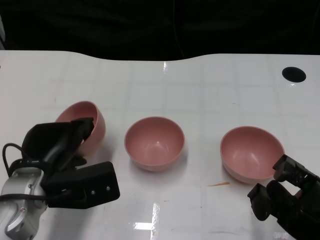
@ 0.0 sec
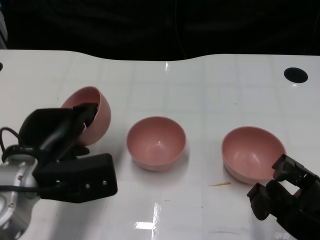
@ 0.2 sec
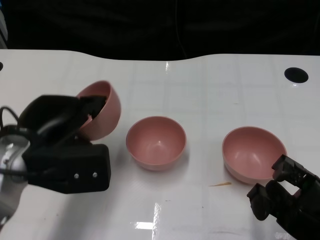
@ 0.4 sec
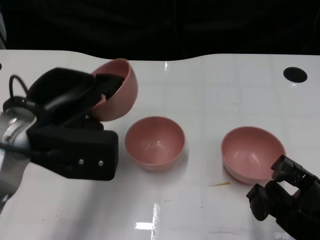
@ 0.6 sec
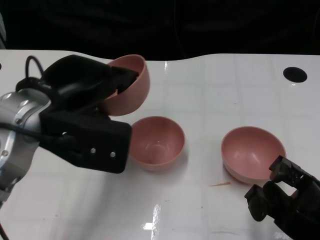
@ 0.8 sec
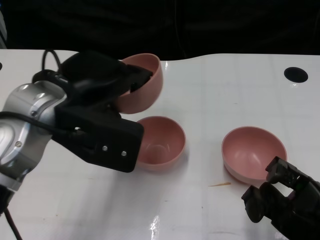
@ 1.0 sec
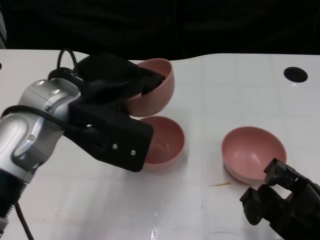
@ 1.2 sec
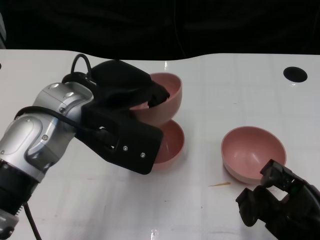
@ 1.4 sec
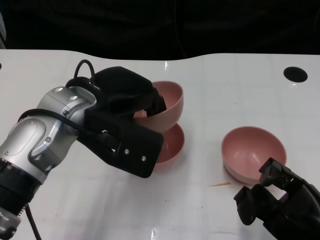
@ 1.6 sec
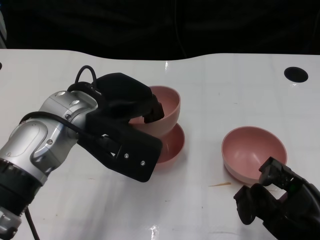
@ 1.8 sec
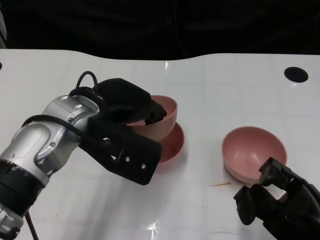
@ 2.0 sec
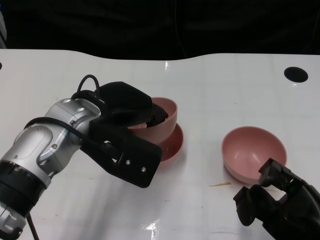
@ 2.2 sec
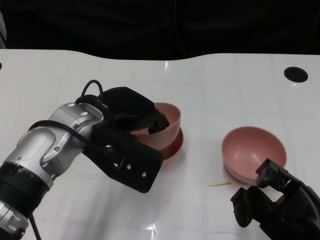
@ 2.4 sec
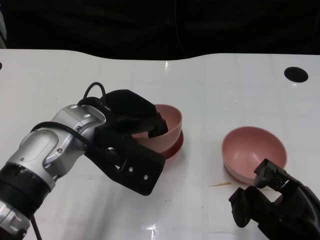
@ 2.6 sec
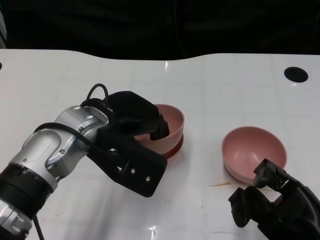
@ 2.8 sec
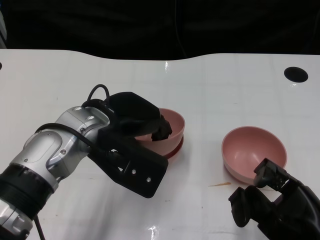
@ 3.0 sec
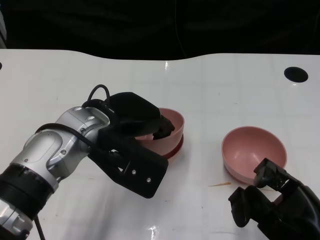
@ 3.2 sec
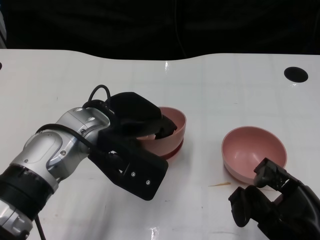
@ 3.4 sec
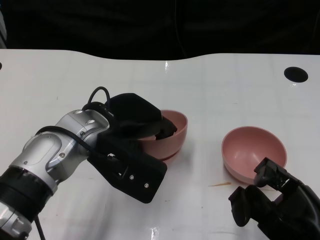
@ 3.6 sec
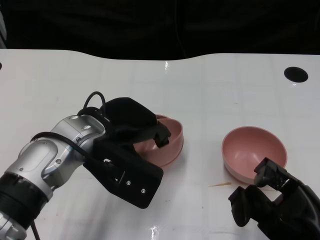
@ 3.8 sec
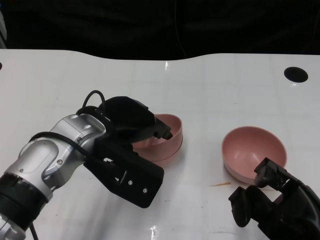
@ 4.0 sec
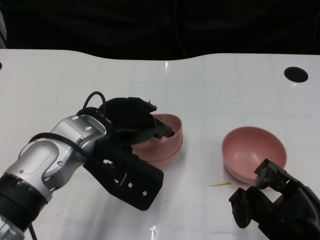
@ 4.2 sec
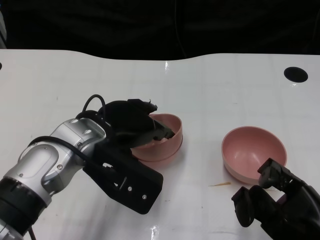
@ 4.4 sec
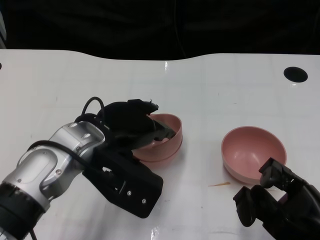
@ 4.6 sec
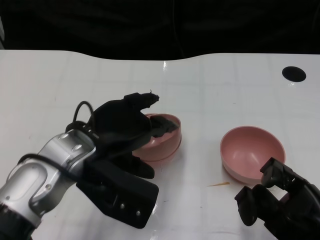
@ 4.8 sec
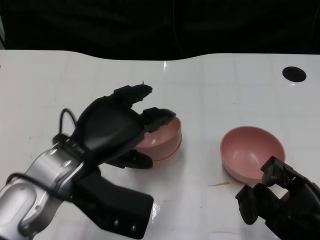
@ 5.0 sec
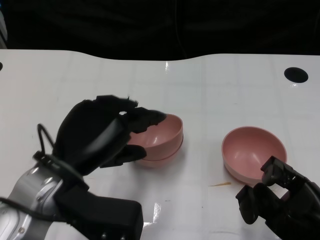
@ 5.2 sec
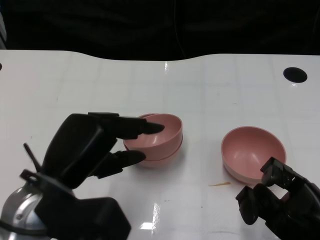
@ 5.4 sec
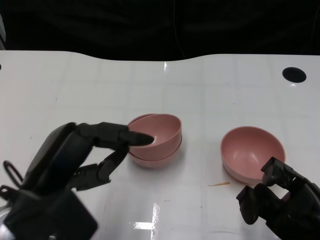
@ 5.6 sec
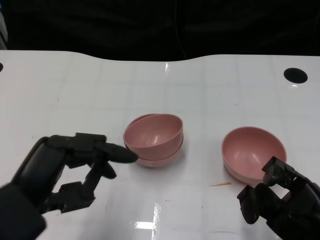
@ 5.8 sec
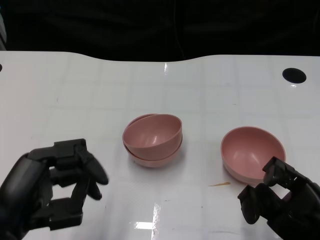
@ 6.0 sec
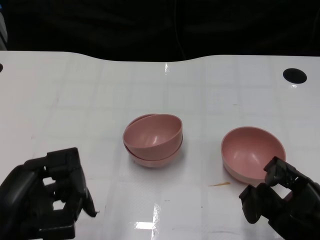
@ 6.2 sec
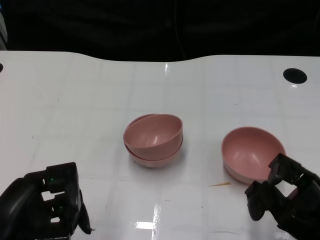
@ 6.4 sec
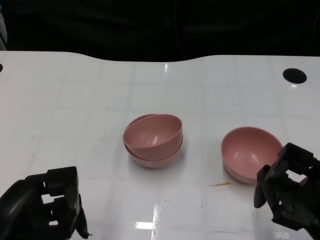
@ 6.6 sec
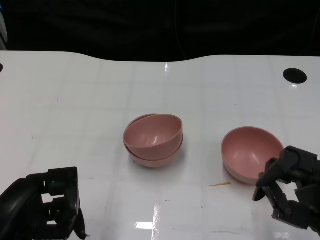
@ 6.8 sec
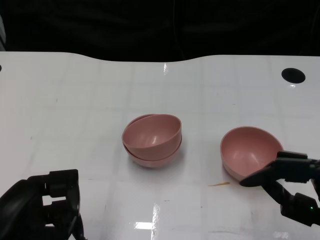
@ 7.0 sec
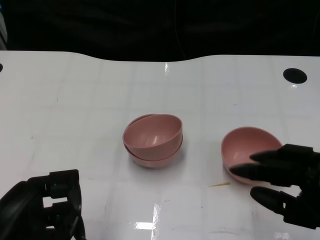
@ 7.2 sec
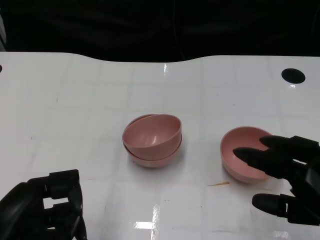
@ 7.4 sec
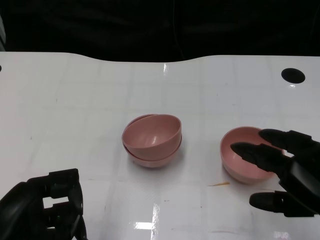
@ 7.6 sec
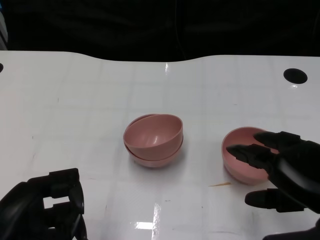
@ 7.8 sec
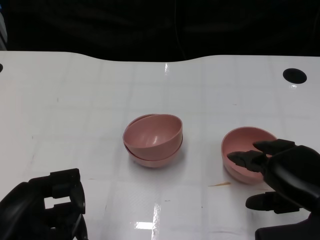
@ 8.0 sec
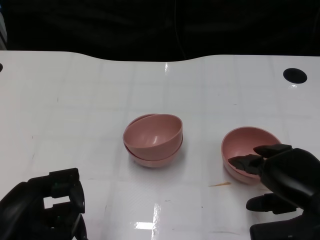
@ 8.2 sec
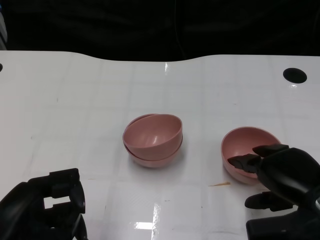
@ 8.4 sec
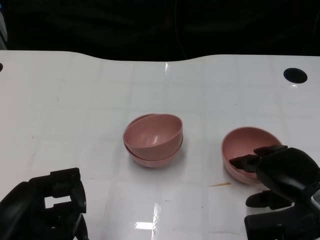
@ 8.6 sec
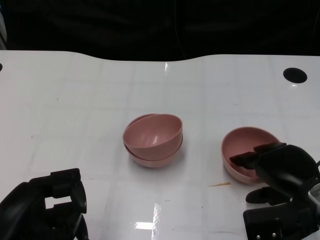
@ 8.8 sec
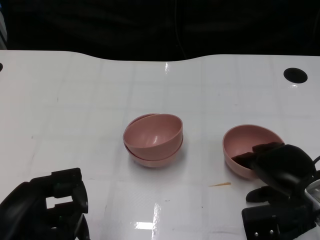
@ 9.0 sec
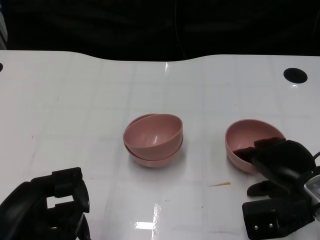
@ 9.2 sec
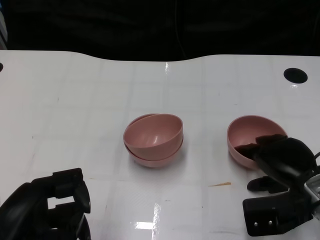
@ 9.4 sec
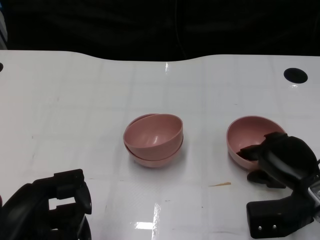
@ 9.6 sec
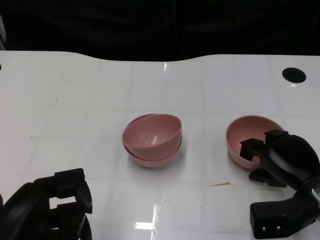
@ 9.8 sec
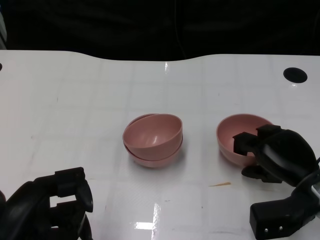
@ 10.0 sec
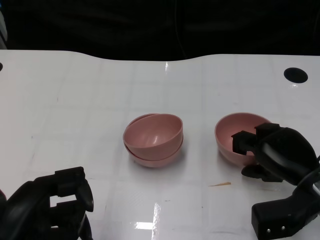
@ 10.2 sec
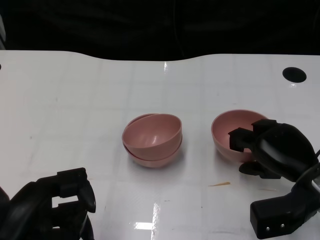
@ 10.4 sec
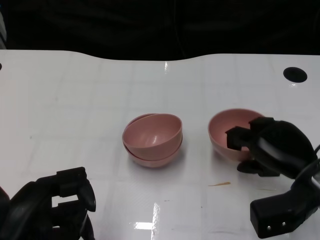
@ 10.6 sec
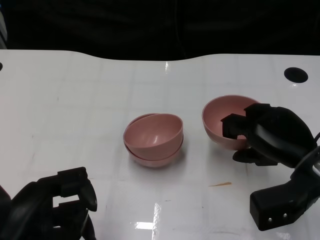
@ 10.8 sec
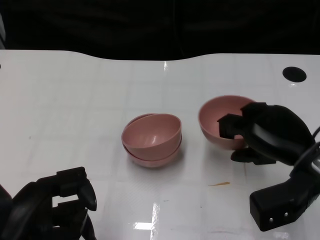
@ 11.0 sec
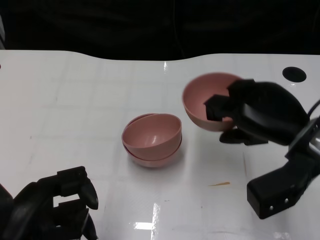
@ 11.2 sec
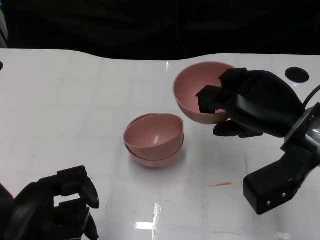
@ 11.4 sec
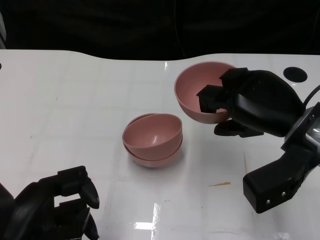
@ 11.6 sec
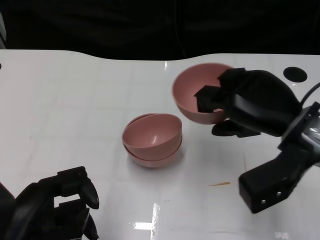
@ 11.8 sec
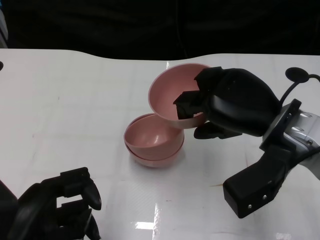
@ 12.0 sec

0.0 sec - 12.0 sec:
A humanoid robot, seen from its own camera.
Task of the whole recording: Pick up the bowl on one side of the table and place it on top of the middle bowl, then pick up the bowl on the other side of the table and place it on top of the middle bowls.
Step, 0.0 sec - 4.8 sec: Place the bowl on the left onto the bowl in the middle with left gripper.
Step, 5.0 sec - 10.0 sec: Grasp the bowl on the right with the right gripper.
0.0 sec - 1.6 sec: The left hand shifts some 15 cm upward and to the right.
3.0 sec - 4.4 sec: The hands stay close to where they were, moving slightly.
4.4 sec - 6.0 sec: The left hand goes roughly 15 cm backward and to the left.
6.0 sec - 7.6 sec: The right hand goes roughly 5 cm upward.
7.6 sec - 9.0 sec: The right hand goes some 10 cm forward and downward.
10.4 sec - 12.0 sec: The right hand moves upward and to the left, about 10 cm.

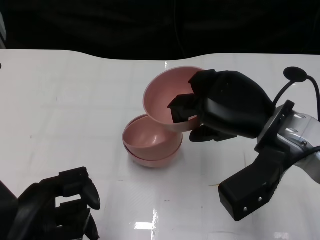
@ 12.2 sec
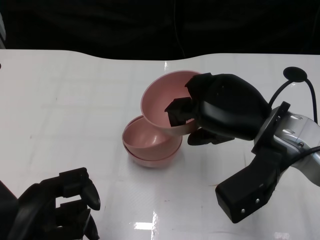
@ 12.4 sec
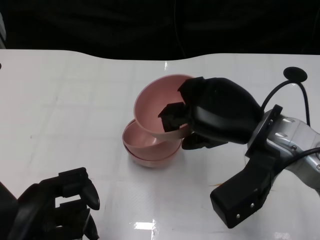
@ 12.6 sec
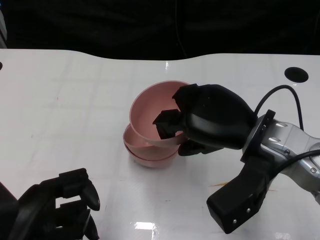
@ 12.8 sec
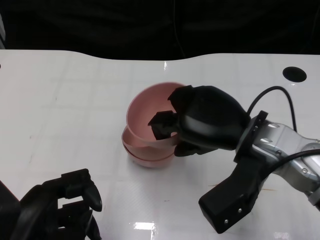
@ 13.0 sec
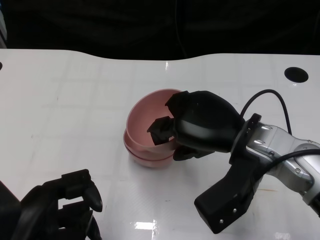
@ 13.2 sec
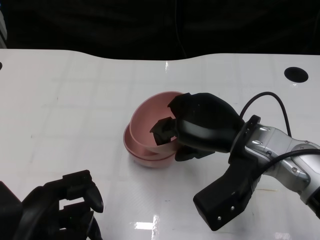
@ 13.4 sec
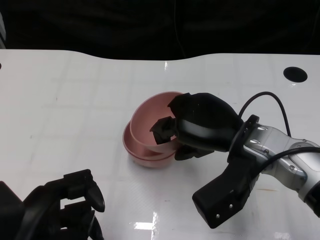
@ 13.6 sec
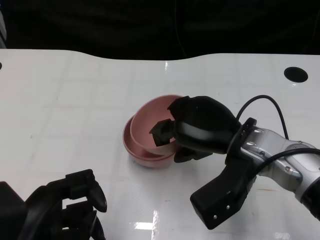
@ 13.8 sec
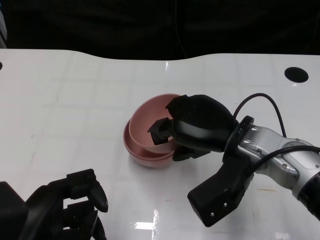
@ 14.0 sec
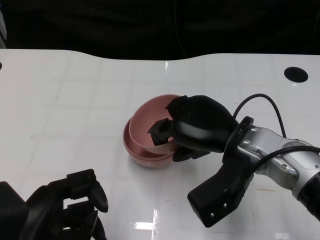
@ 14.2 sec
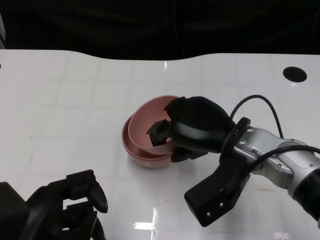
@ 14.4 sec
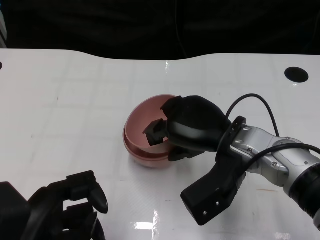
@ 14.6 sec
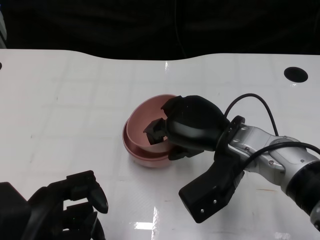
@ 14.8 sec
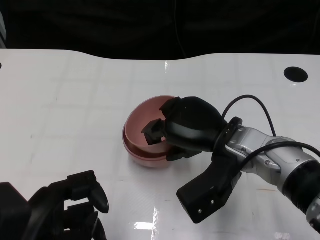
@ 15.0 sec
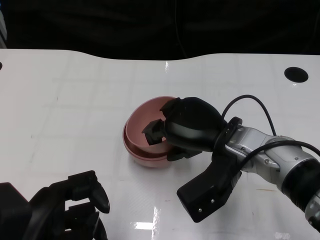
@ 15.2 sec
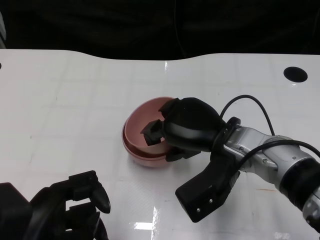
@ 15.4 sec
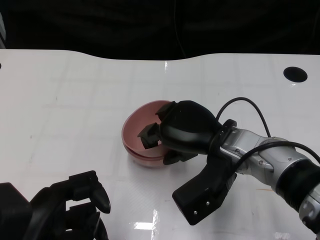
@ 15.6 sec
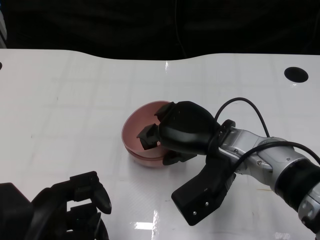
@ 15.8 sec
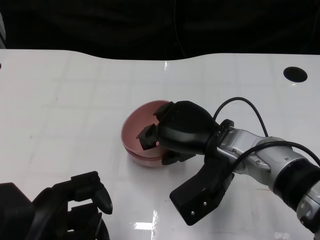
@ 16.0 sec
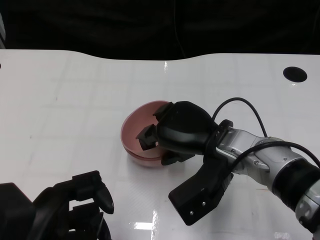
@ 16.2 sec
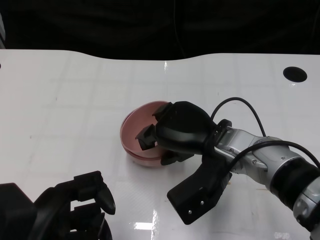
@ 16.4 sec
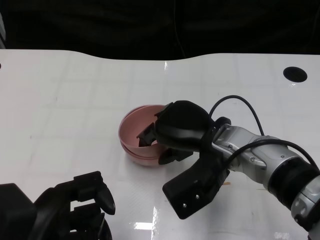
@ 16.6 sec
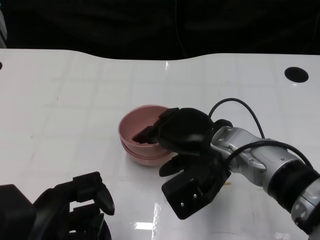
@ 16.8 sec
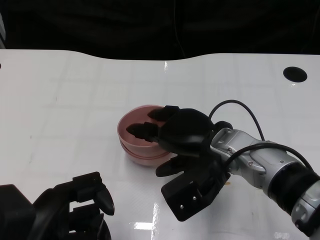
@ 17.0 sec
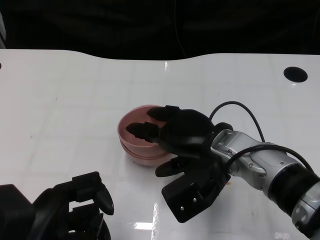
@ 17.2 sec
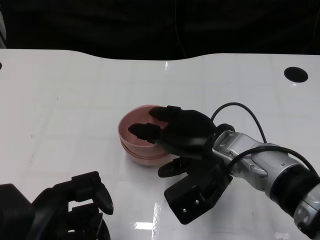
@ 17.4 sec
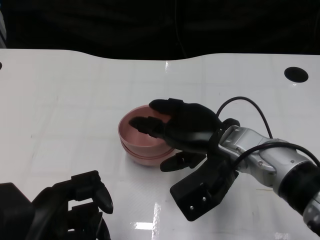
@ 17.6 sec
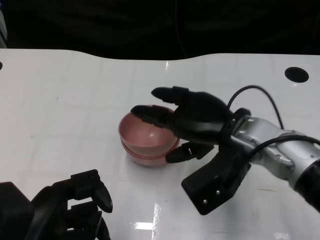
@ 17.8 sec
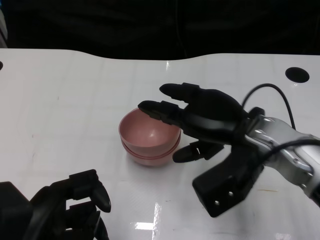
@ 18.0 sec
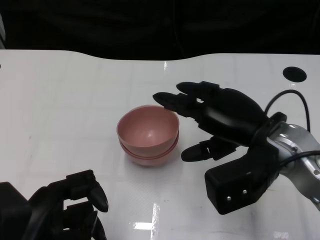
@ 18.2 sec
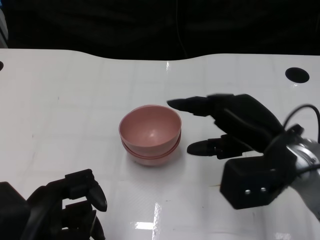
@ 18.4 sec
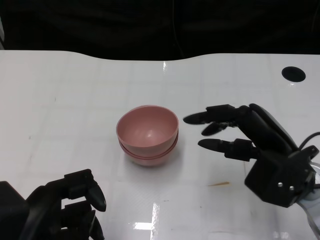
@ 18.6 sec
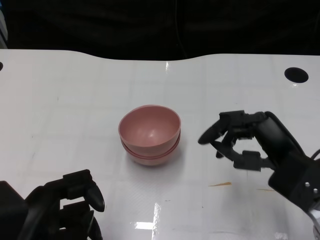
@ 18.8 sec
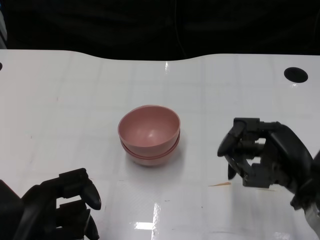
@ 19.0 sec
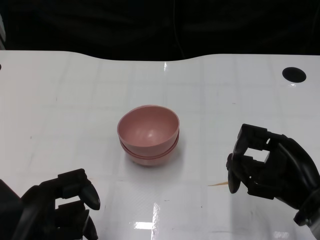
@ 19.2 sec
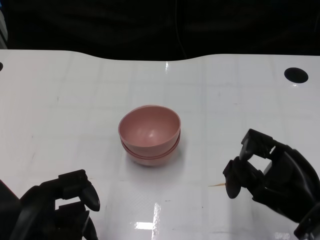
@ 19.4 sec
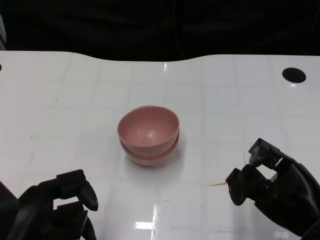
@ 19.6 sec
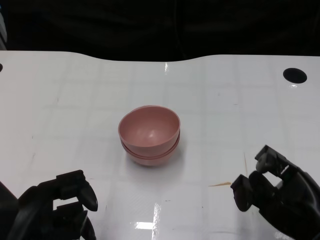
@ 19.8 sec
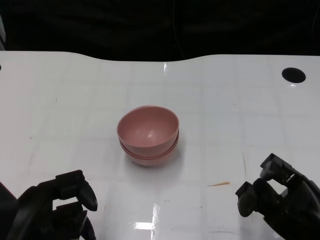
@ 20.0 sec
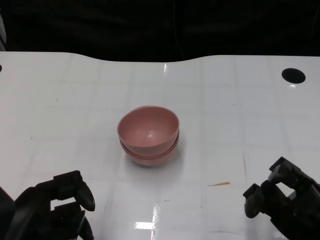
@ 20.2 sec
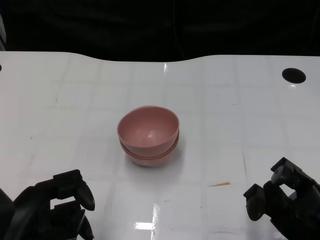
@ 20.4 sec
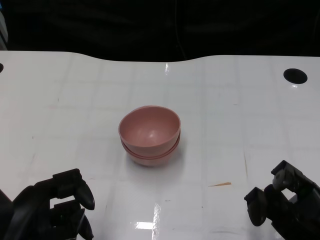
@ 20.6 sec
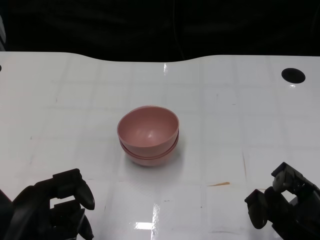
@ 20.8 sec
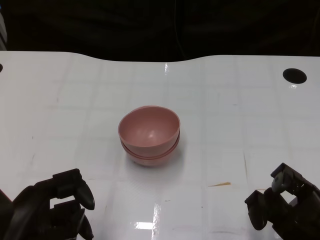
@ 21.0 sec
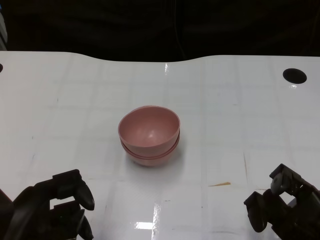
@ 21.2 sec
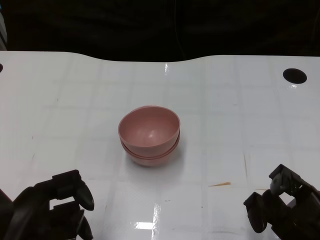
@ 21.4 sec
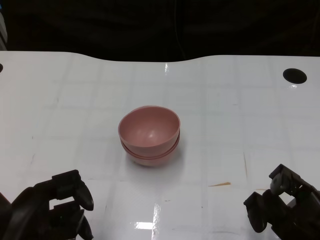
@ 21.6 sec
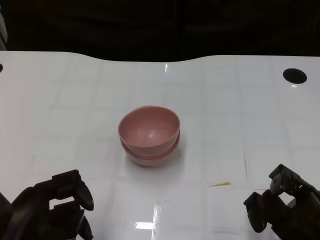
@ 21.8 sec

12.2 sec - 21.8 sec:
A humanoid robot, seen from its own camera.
Task of the whole recording: Pick up the bowl on one side of the table and place it on top of the middle bowl, then pick up the bowl on the other side of the table and place it on top of the middle bowls.
Step, 12.2 sec - 17.6 sec: Place the bowl on the right onto the bowl in the middle with right gripper.
12.2 sec - 13.8 sec: The right hand changes place by approximately 5 cm.
13.8 sec - 17.0 sec: There are only small adjustments of the hands.
17.0 sec - 18.6 sec: The right hand travels to the right by some 10 cm.
18.6 sec - 20.2 sec: The right hand goes about 15 cm backward, downward and to the right.
20.2 sec - 21.8 sec: The two hands keep their place.
